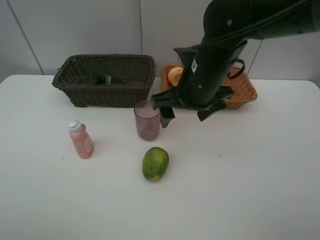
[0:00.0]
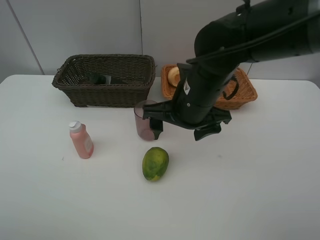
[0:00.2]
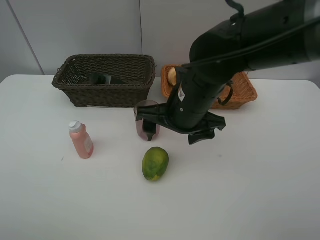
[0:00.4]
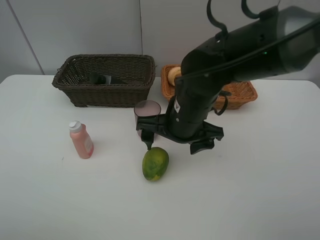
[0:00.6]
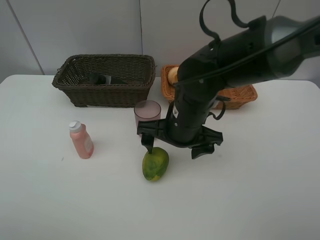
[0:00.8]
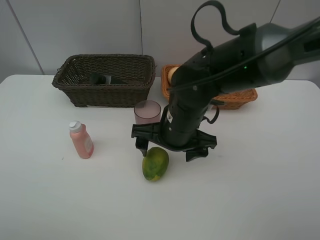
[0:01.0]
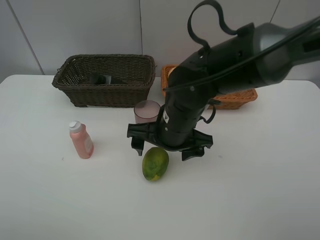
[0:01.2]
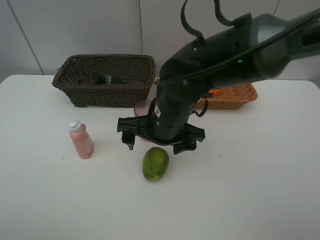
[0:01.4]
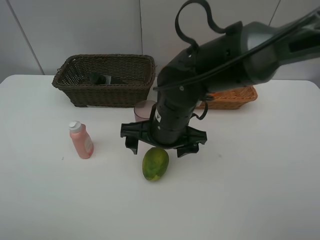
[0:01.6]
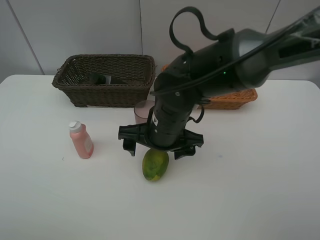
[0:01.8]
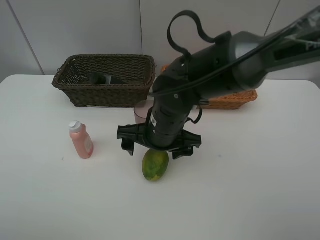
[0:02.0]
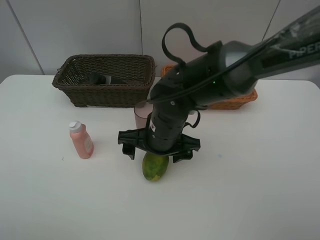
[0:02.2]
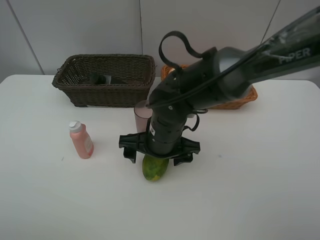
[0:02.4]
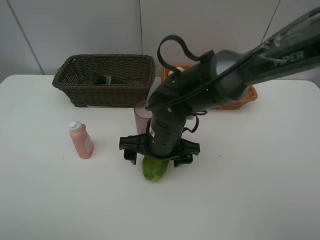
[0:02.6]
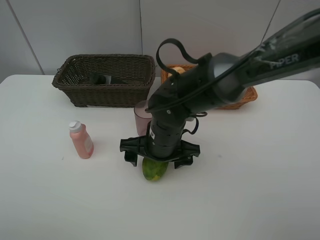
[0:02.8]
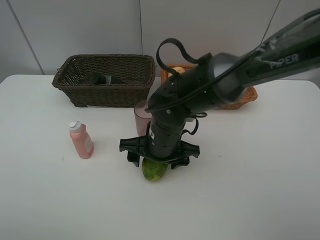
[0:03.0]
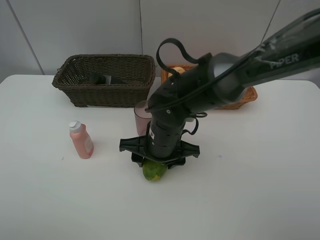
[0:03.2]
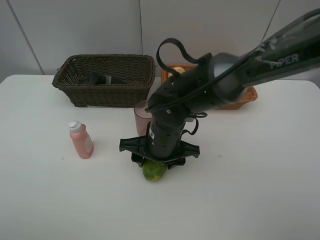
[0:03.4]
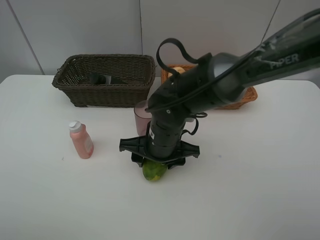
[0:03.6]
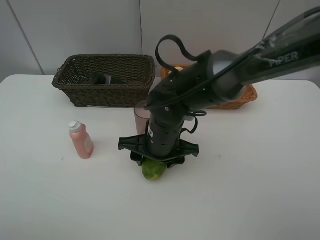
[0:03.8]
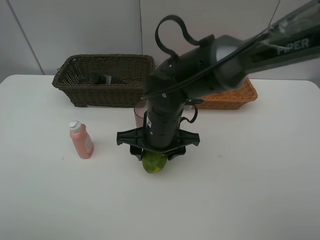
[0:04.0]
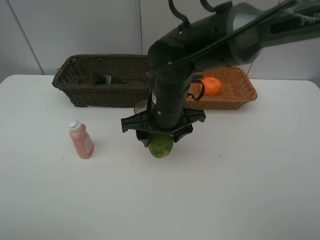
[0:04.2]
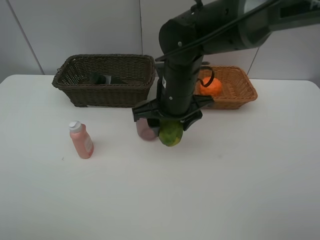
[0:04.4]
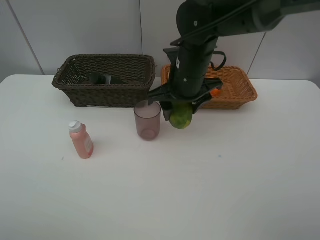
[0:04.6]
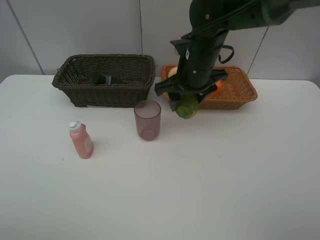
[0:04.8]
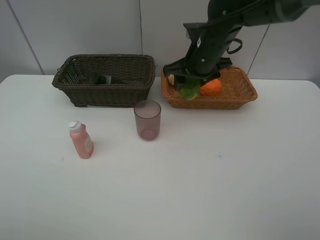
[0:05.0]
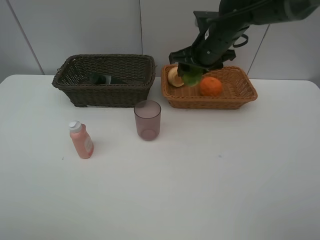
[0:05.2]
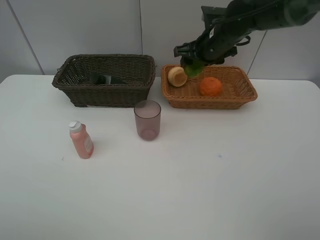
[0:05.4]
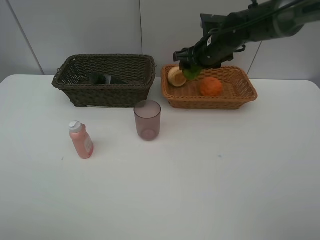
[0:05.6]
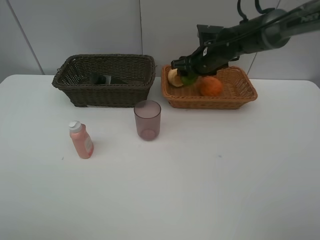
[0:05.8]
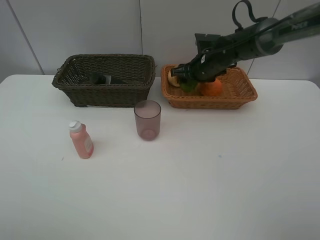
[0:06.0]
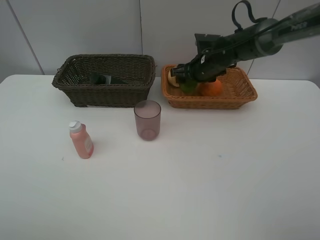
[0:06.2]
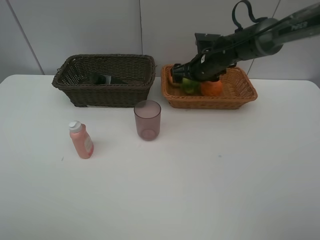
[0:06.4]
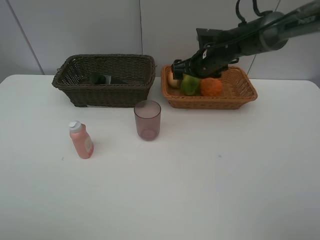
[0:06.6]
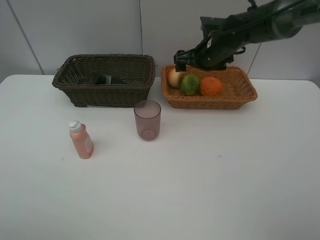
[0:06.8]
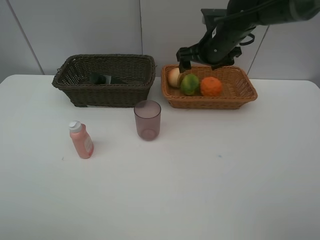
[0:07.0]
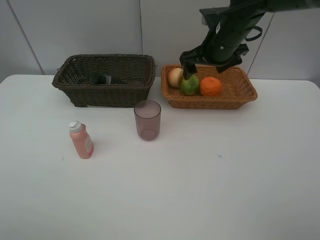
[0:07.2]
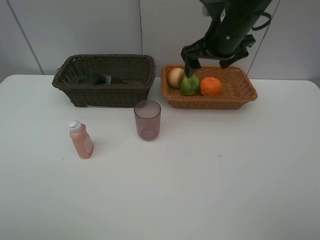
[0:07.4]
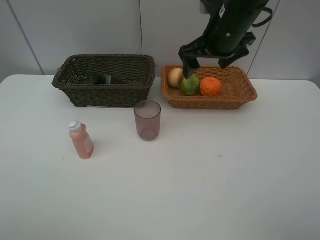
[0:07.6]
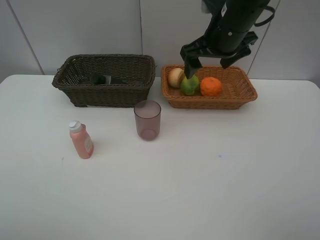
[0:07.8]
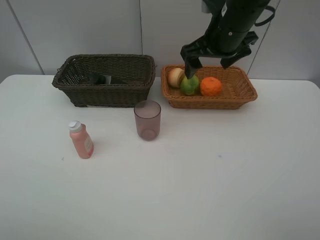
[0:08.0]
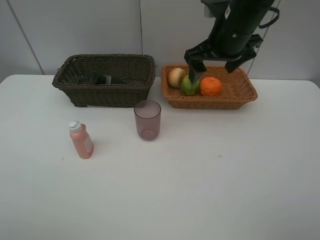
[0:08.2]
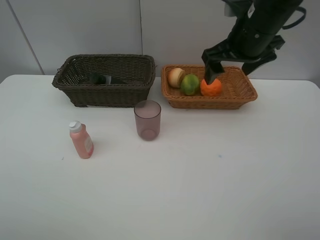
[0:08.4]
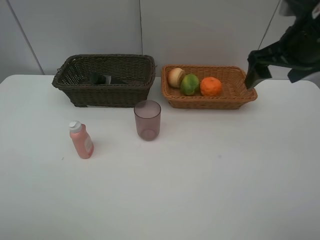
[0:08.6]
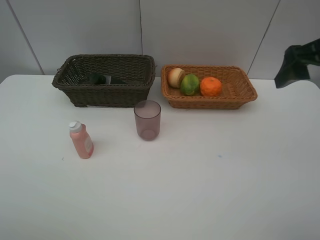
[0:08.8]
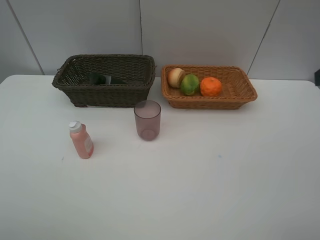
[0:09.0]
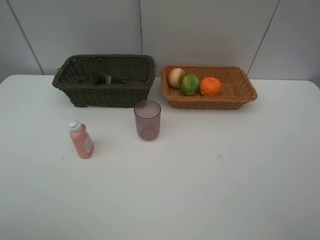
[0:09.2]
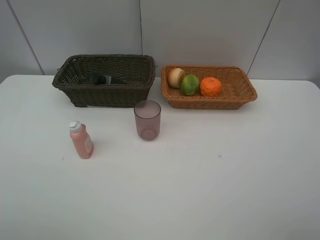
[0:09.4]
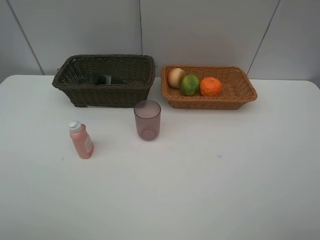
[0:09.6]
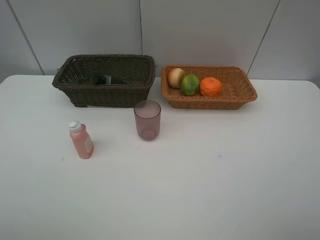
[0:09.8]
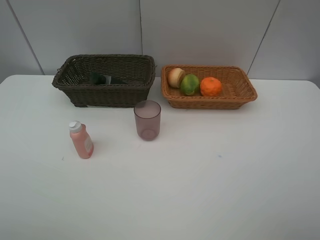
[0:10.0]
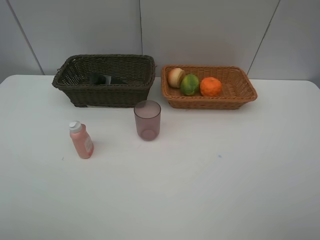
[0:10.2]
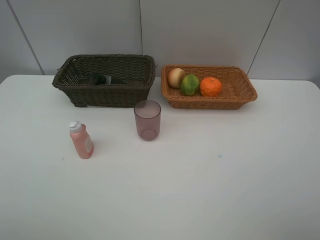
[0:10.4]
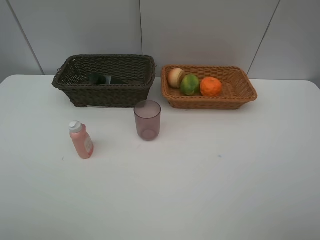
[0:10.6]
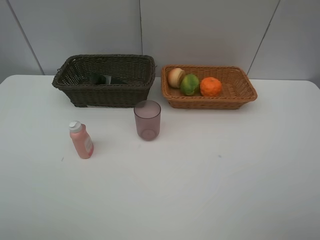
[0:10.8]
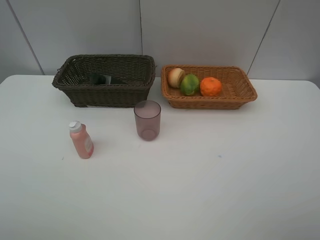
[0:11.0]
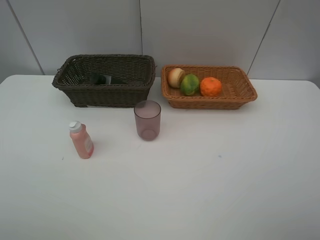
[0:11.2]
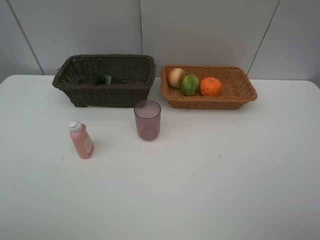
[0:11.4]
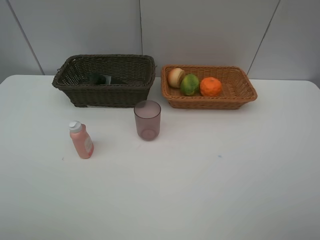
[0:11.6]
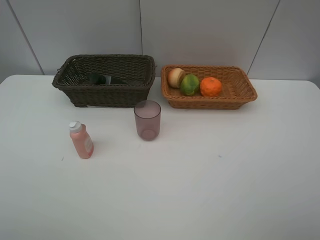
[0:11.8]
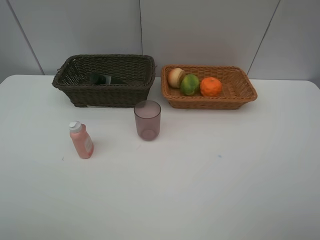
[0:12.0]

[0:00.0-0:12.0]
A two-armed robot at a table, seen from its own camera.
Task of the whole recording: place multiple objects separately in different baskets.
0:00.0 to 0:01.6: The right gripper moves downward and to the left, some 10 cm.
0:01.6 to 0:03.0: The grippers make only small movements.
0:03.0 to 0:04.4: The right gripper shifts roughly 10 cm upward.
0:04.4 to 0:06.0: The right gripper moves forward and to the right, about 20 cm.
0:06.0 to 0:07.6: The right gripper goes approximately 15 cm upward and backward, and opens its fingers.
0:07.6 to 0:09.0: The right gripper shifts roughly 25 cm backward and to the right.

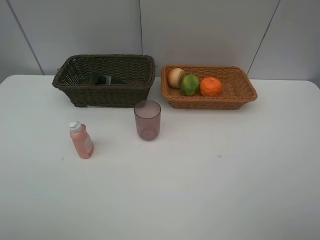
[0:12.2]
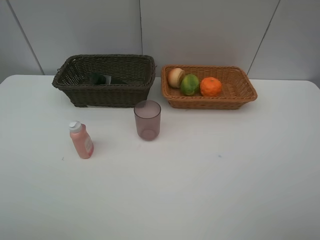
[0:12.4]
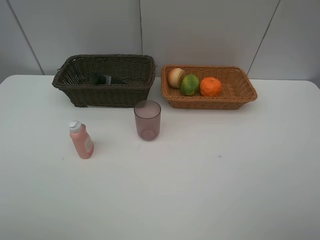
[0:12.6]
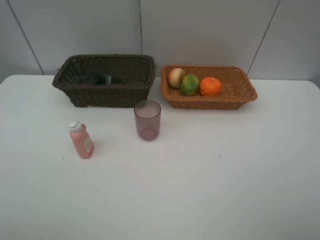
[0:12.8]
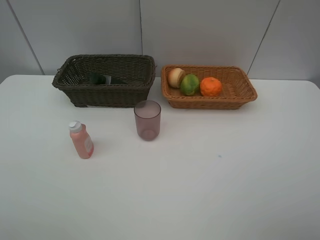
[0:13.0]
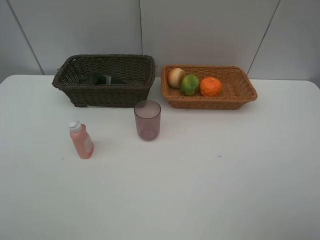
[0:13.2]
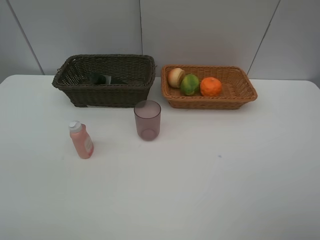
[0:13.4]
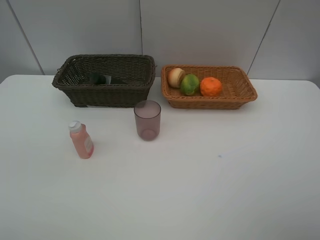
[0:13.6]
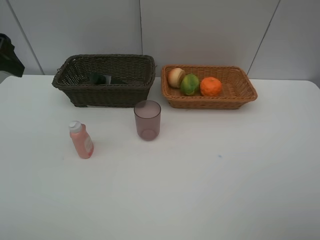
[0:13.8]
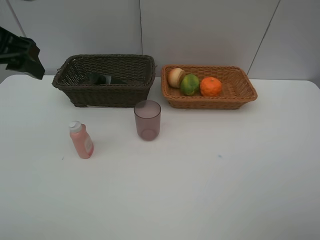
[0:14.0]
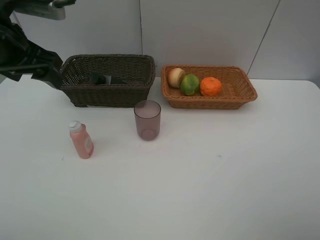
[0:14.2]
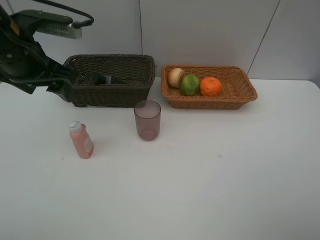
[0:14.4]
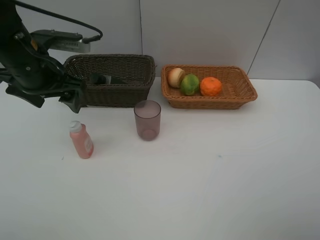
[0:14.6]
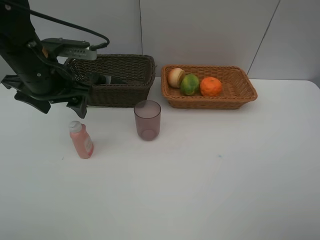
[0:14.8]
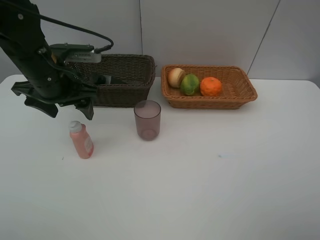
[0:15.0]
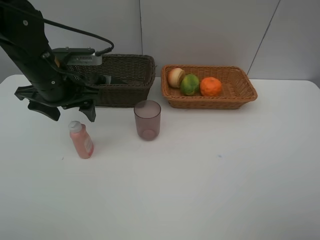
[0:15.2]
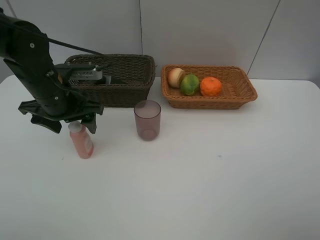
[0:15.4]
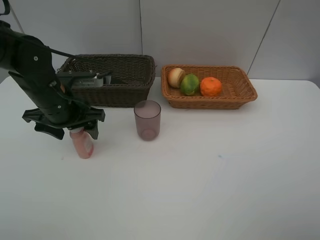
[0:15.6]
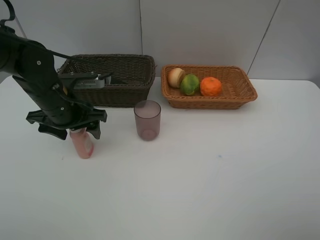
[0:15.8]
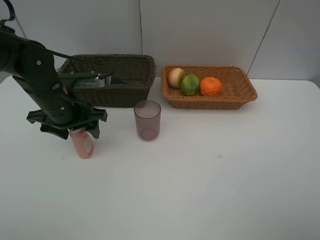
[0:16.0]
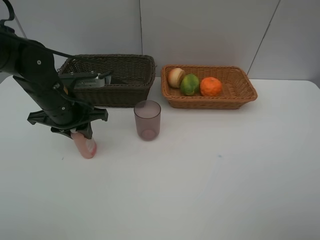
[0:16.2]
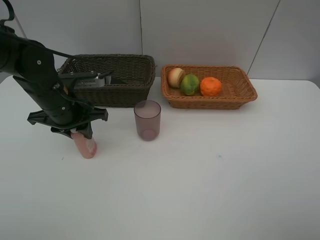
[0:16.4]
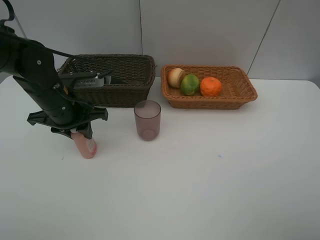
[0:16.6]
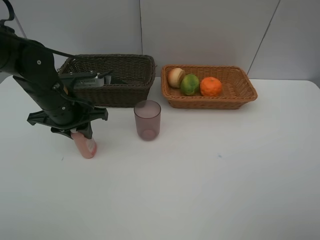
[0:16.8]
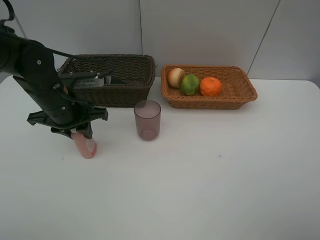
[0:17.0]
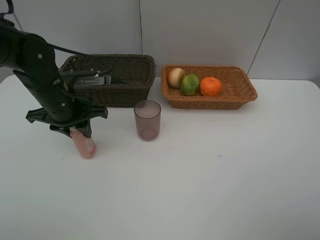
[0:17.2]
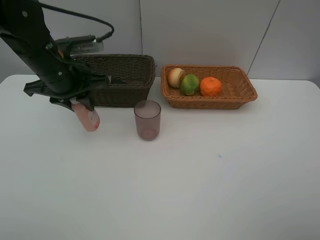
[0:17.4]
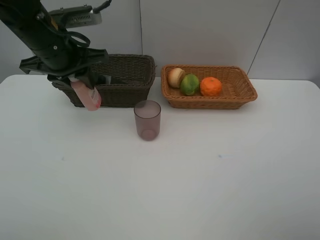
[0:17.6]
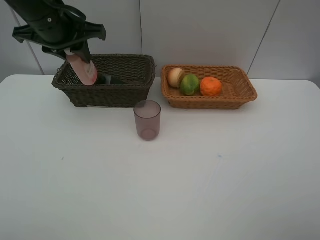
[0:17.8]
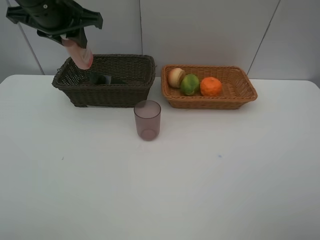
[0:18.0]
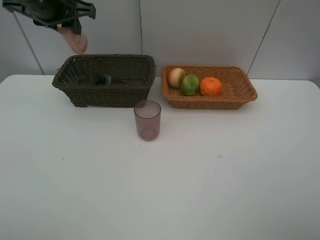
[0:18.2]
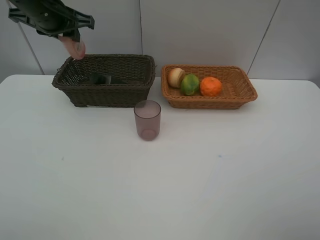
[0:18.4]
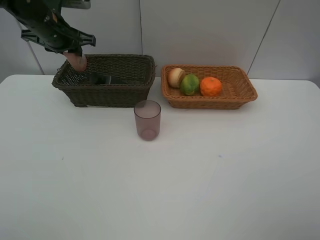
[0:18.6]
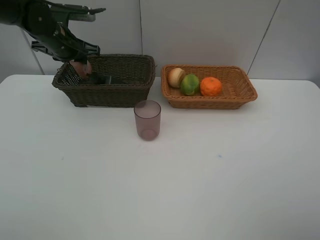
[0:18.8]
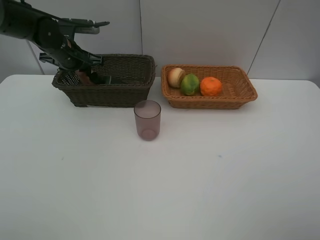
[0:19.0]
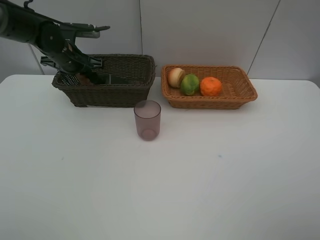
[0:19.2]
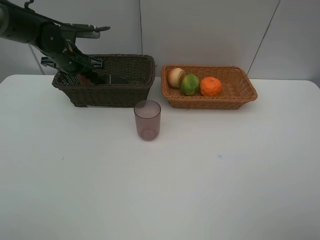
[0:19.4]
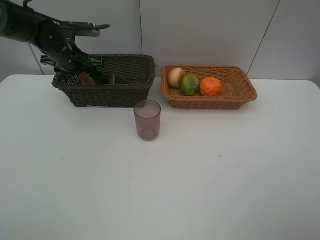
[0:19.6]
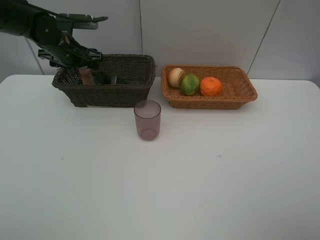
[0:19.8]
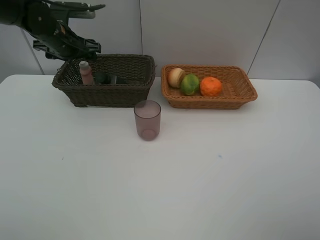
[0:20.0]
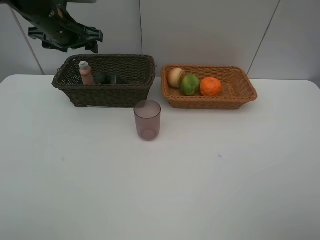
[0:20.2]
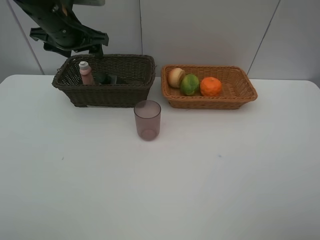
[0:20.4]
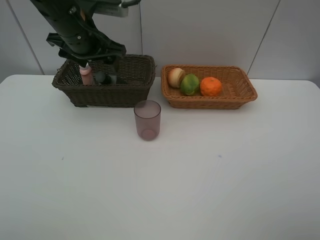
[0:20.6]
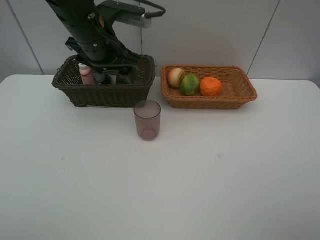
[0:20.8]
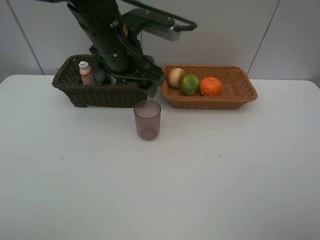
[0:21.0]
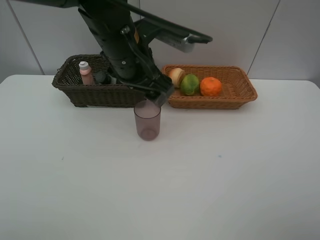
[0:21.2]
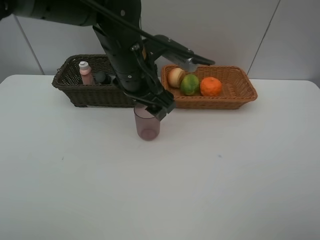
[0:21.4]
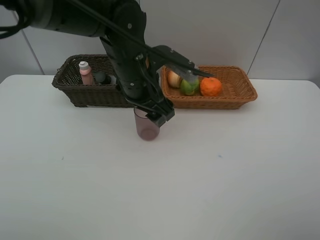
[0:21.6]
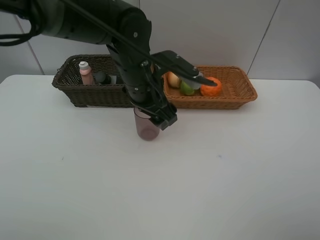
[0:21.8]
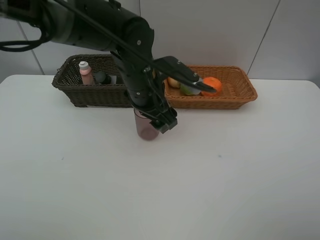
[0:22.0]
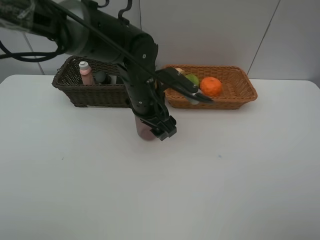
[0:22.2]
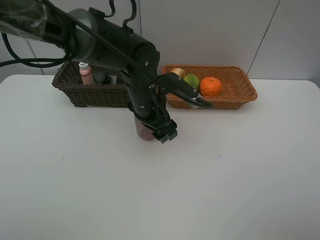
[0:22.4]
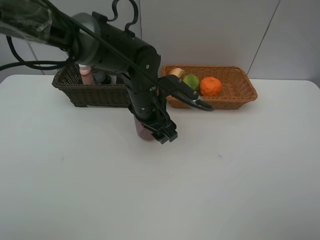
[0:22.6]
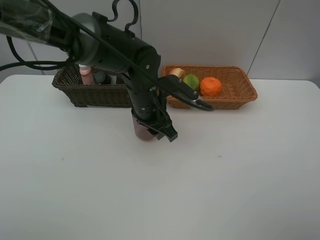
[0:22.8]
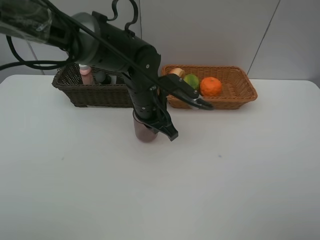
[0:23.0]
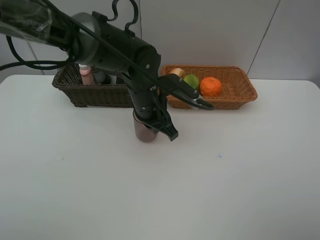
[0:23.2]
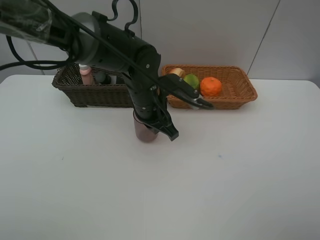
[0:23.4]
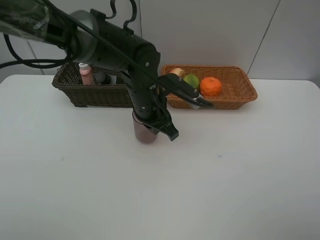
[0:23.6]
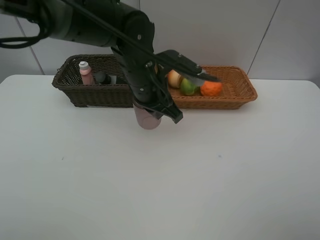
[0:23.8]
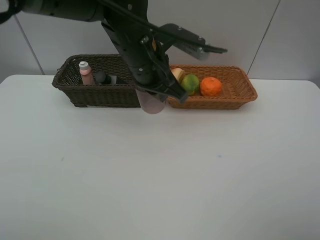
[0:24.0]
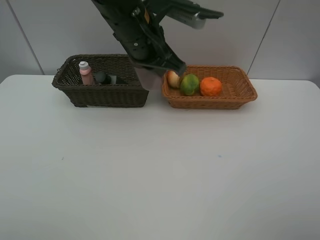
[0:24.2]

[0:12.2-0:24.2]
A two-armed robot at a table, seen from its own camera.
Task of the whole recording: place multiple objects separately in different baskets.
0:12.2 to 0:13.8: The left gripper is displaced forward by roughly 25 cm.
0:13.8 to 0:15.2: The left gripper moves downward, to the right and forward, approximately 15 cm.
0:15.2 to 0:16.6: The left gripper closes.
0:16.6 to 0:18.2: The left gripper is displaced upward and forward by roughly 20 cm.
0:18.2 to 0:19.8: The left gripper is displaced downward and forward by some 15 cm, and opens up.
0:19.8 to 0:21.2: The left gripper goes some 25 cm to the right and backward.
0:21.2 to 0:22.6: The left gripper heads downward, covering approximately 10 cm.
0:22.6 to 0:24.2: The left gripper heads upward, covering approximately 15 cm, and closes its fingers.
